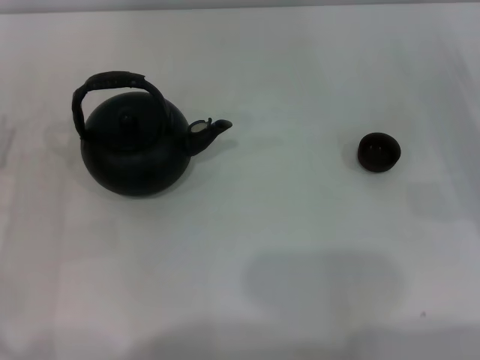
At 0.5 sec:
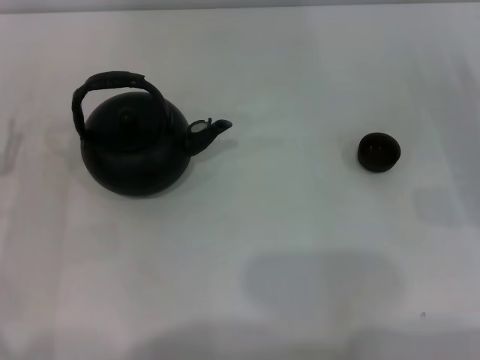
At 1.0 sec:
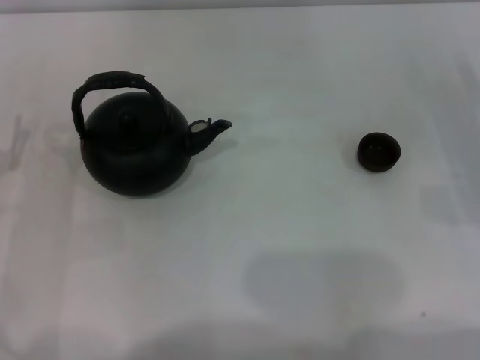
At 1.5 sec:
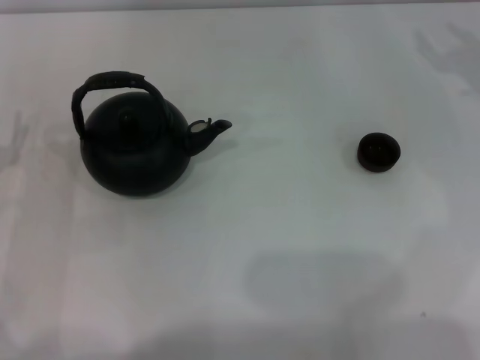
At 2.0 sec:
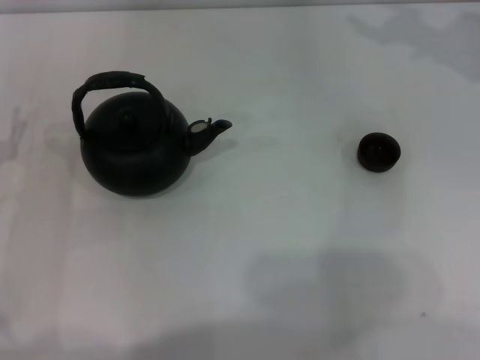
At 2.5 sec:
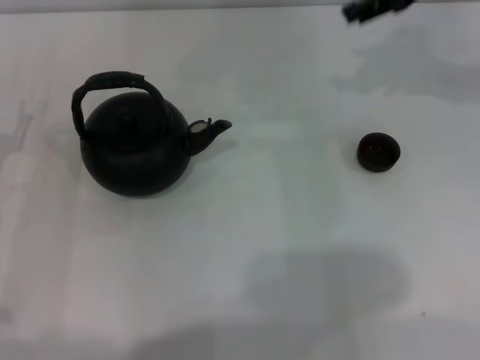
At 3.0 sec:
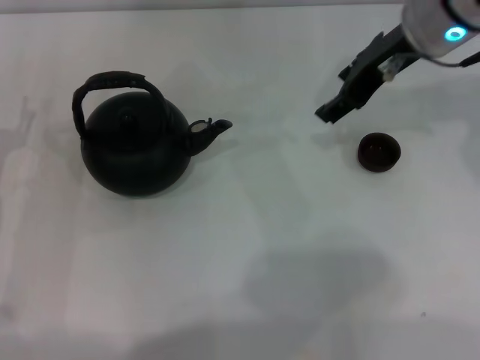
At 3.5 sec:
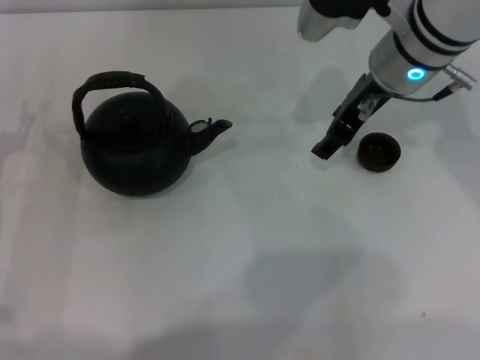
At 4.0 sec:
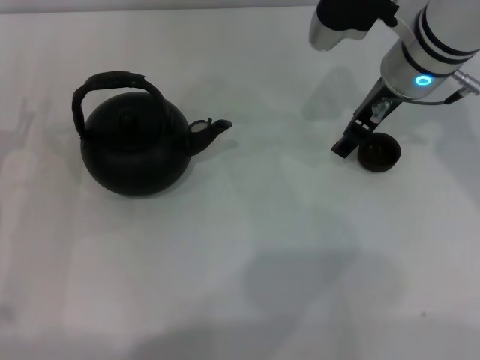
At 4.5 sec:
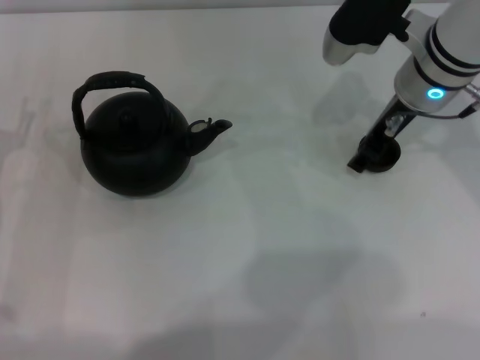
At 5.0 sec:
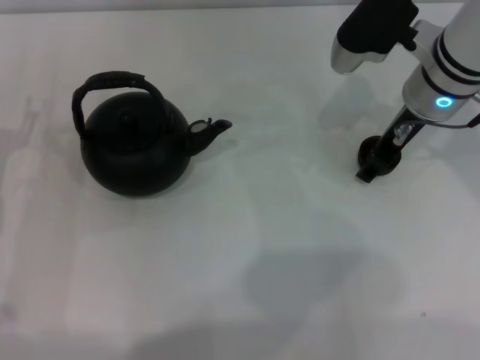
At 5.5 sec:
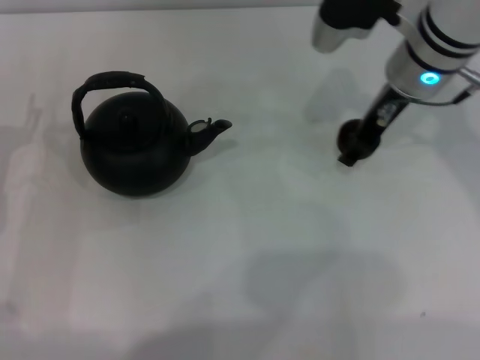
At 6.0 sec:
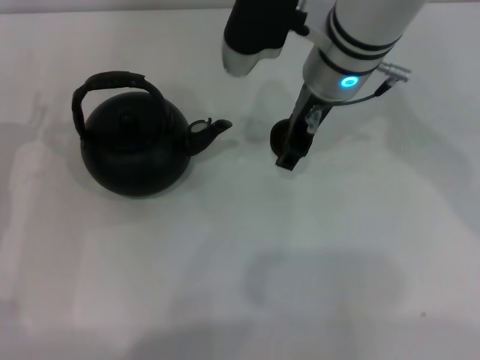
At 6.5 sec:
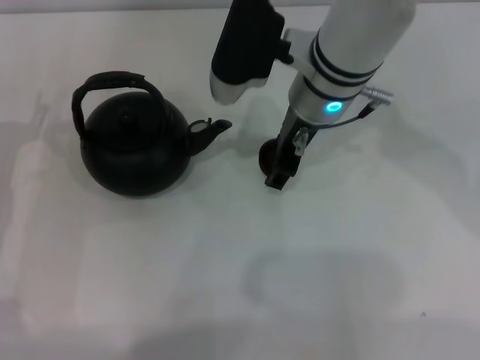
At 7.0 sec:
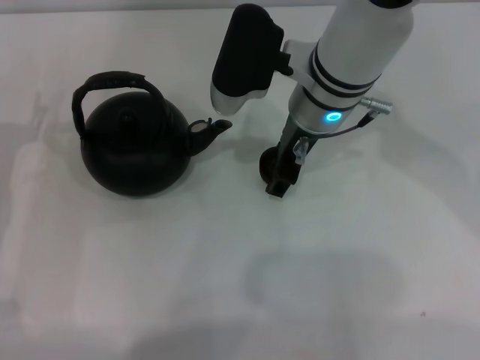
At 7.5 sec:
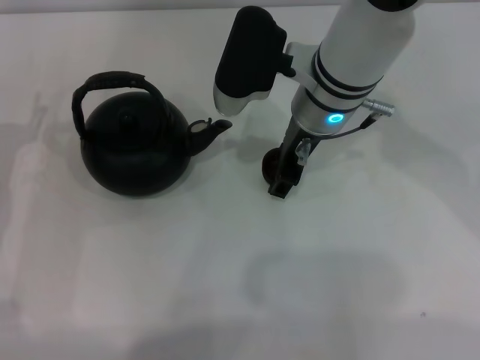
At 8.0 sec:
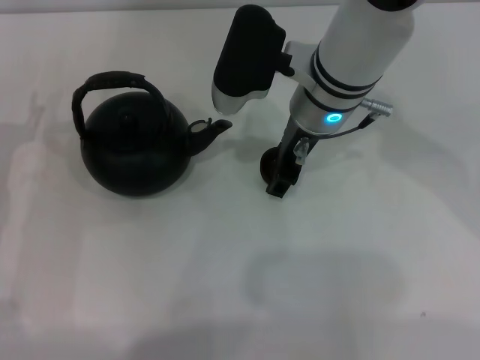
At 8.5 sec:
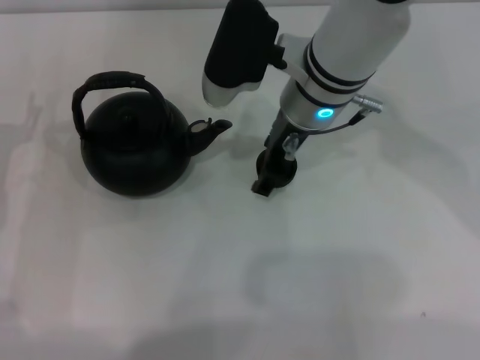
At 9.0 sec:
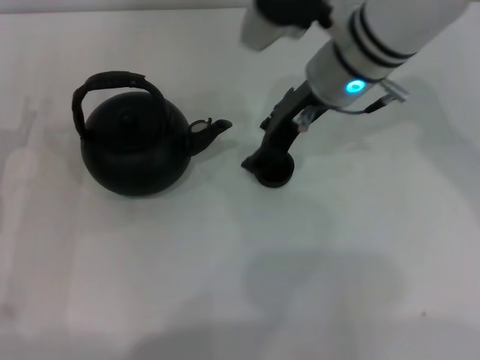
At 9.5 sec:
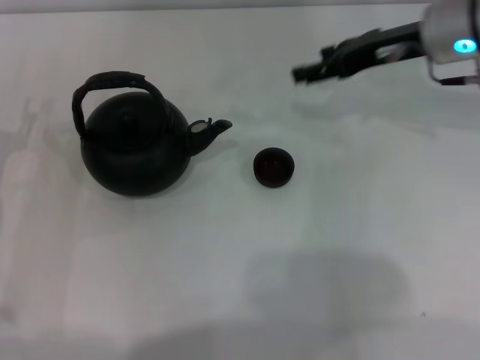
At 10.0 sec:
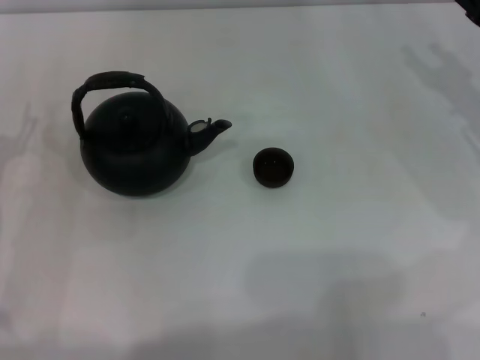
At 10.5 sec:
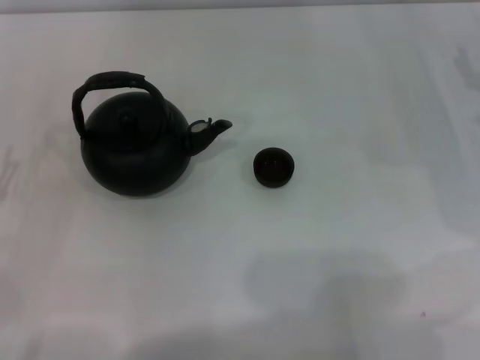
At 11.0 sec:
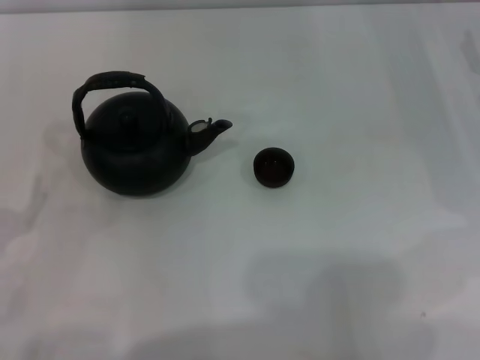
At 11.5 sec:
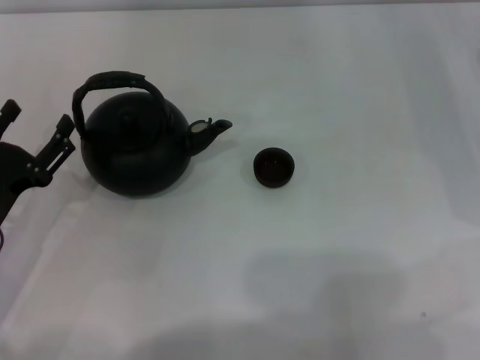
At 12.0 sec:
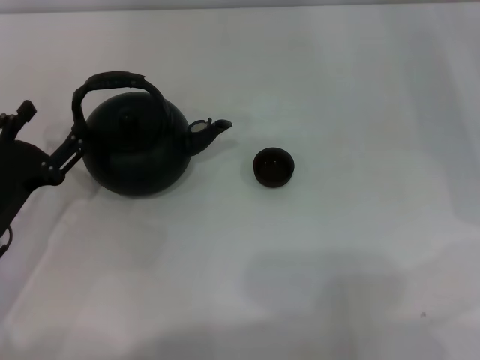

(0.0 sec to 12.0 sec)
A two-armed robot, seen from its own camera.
Task of the whole recording: Grasp the handle of the teapot with one hand and pour tea into the teacup.
Step, 0.0 sec - 5.5 sec: Pick up the teacup with the right gripper.
Step, 6.0 sec - 8.5 sec: Place the teacup in the center of view with the right gripper.
2.0 sec - 4.0 sec: The right gripper goes about 15 cm to the left and downward.
4.0 sec - 6.0 sec: The right gripper shifts roughly 10 cm to the left.
6.0 sec - 8.0 sec: The grippers move only a little.
8.0 sec - 10.0 sec: The right gripper shifts some 25 cm to the right.
10.0 sec - 12.0 sec: The left gripper moves roughly 10 cm backward and comes back.

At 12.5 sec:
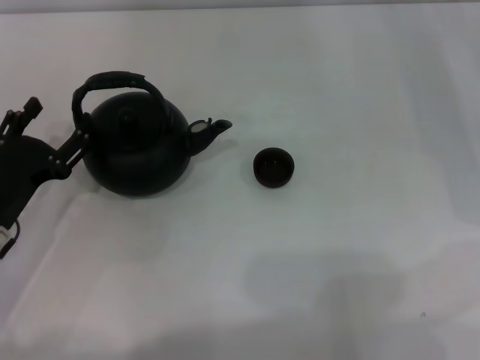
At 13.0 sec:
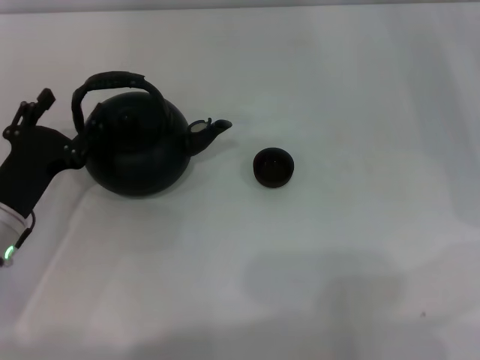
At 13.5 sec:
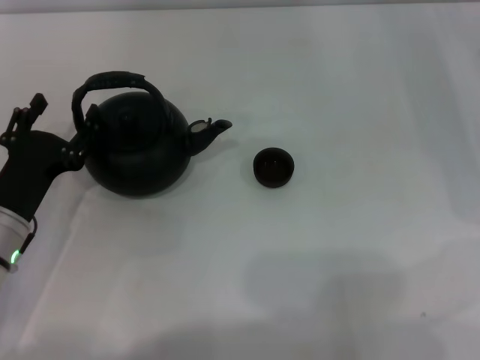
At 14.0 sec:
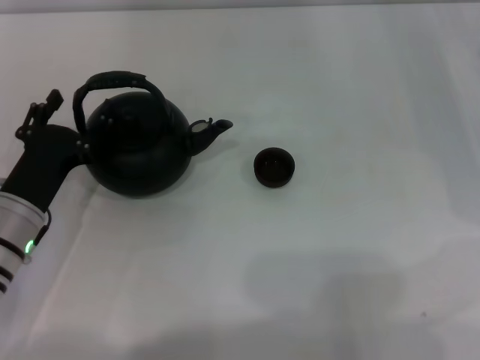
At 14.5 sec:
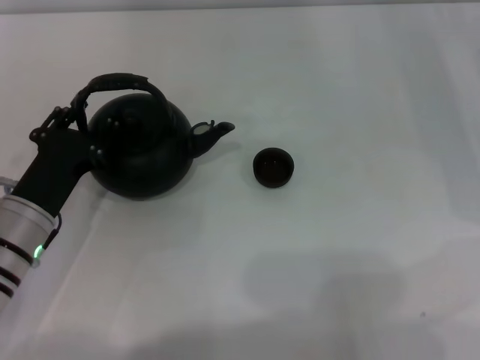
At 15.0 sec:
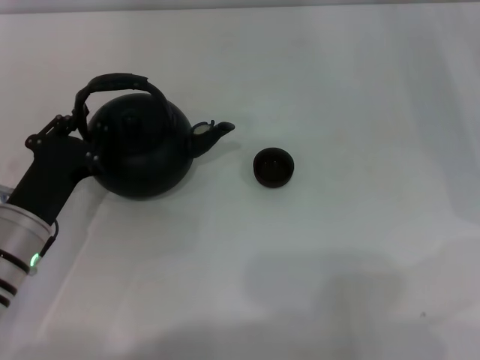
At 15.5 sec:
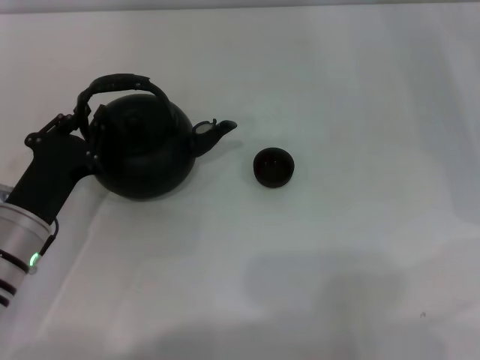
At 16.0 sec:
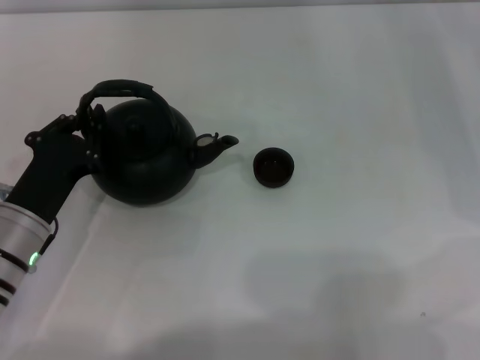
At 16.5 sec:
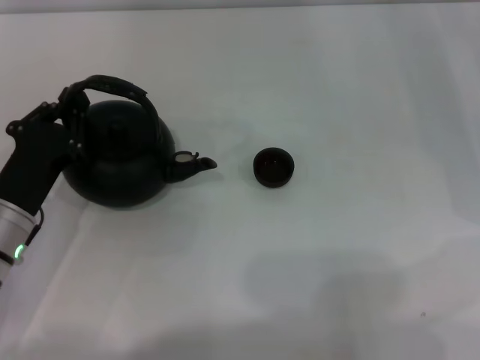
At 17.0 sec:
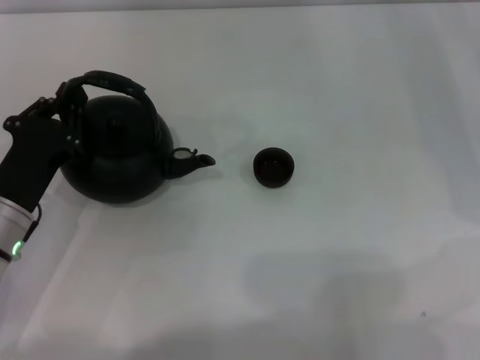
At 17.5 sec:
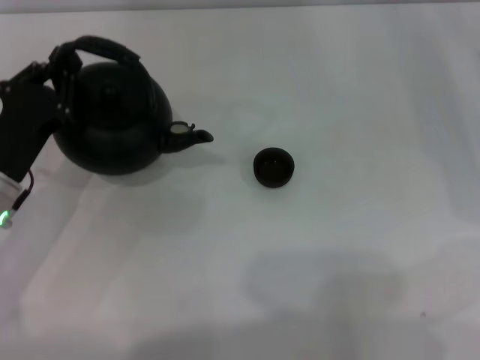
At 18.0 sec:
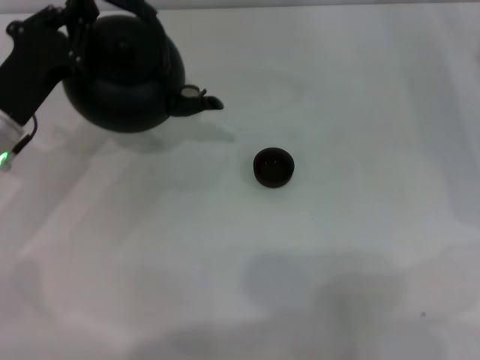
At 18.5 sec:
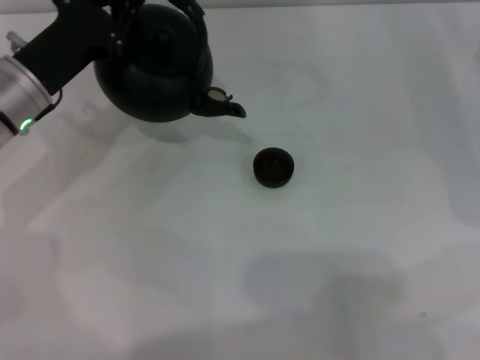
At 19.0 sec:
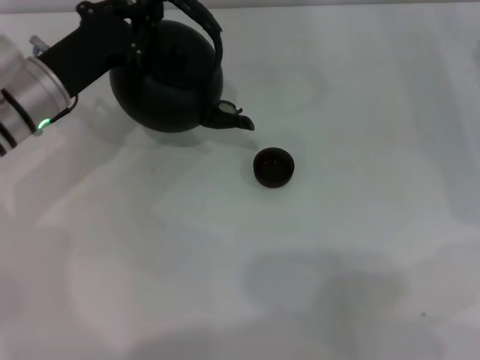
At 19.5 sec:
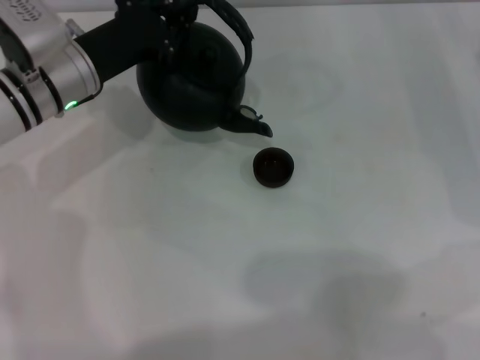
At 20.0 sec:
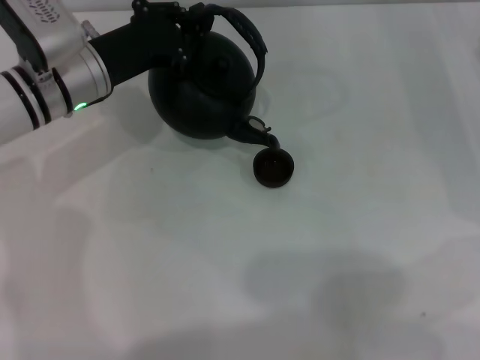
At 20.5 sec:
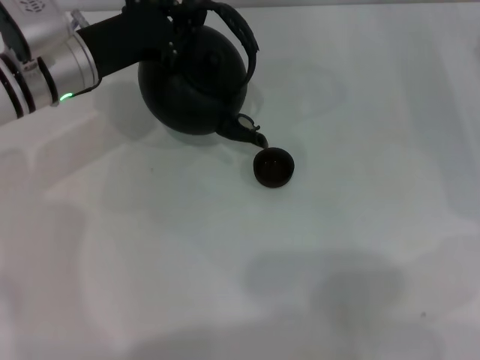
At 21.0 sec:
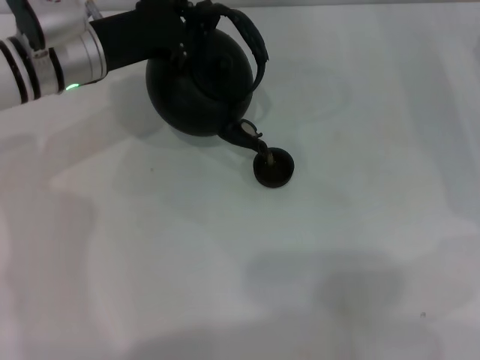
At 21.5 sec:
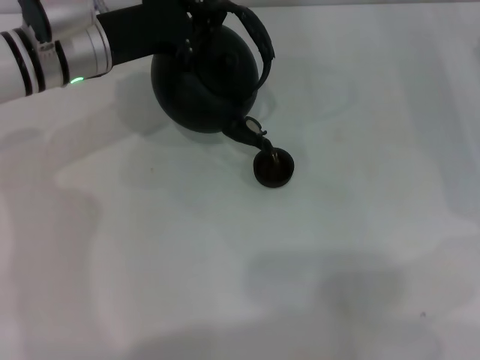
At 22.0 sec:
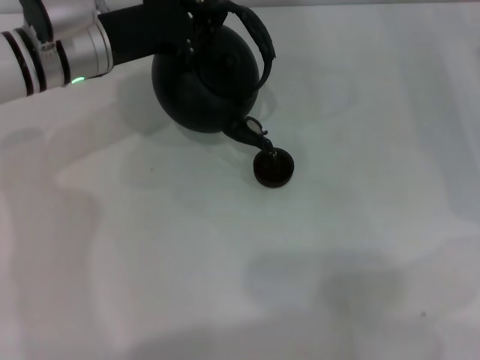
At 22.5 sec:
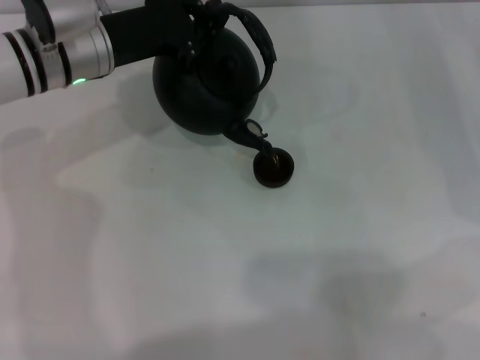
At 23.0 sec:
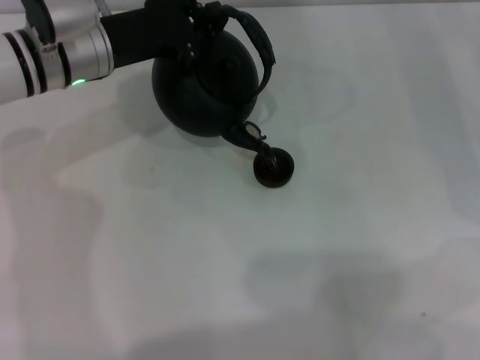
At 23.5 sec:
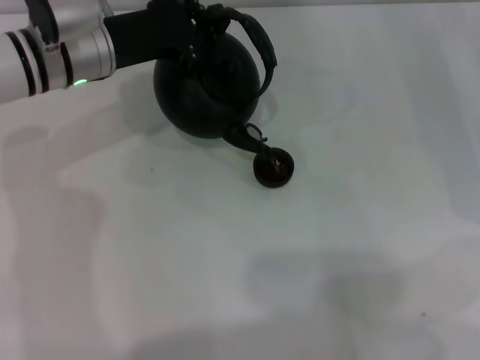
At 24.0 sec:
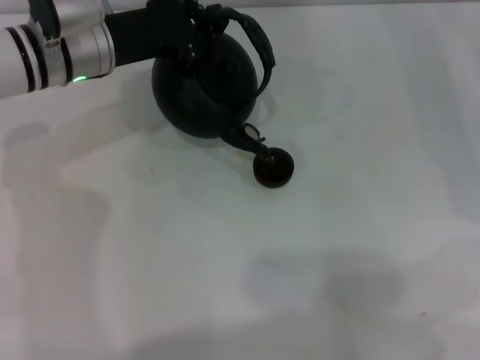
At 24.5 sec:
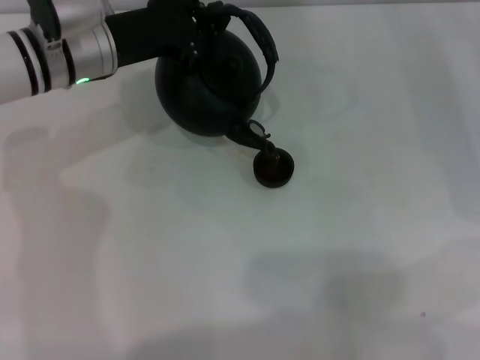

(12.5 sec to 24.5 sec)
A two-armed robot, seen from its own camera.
Task of the whole recording: Grasp the handle of the teapot with one hand and pour tea into the teacup.
Step, 12.5 sec - 17.0 sec: Pick up the teapot with the left gripper.
12.5 sec - 14.5 sec: The grippers move only a little.
14.5 sec - 16.5 sec: The left gripper closes its fingers.
16.5 sec - 18.5 sec: The left gripper moves forward and upward, about 15 cm.
18.5 sec - 20.5 sec: The left gripper shifts by about 5 cm.
20.5 sec - 22.5 sec: The grippers make only small movements.
22.5 sec - 24.5 sec: Neither gripper changes place.

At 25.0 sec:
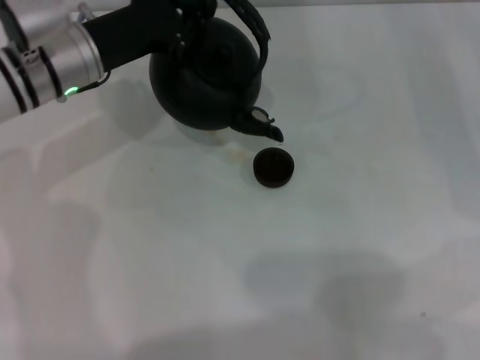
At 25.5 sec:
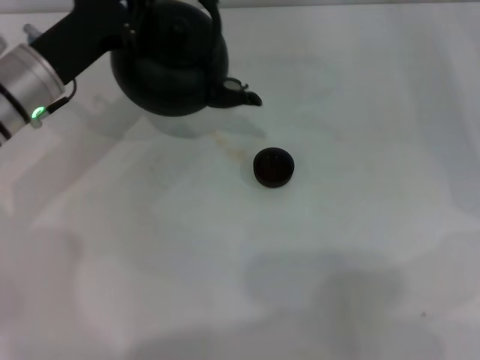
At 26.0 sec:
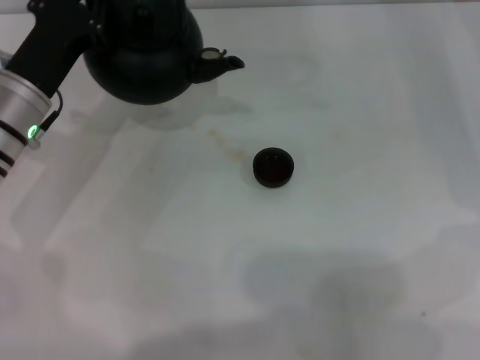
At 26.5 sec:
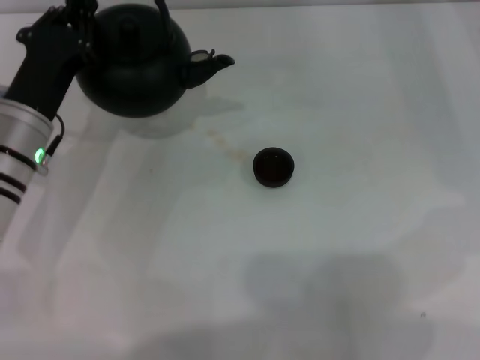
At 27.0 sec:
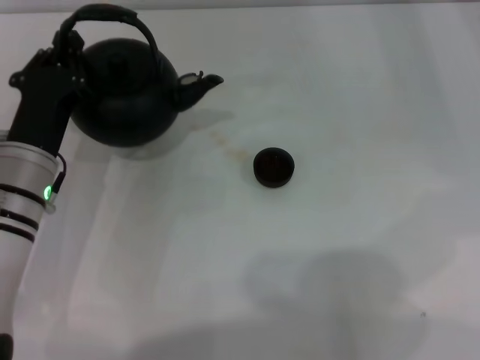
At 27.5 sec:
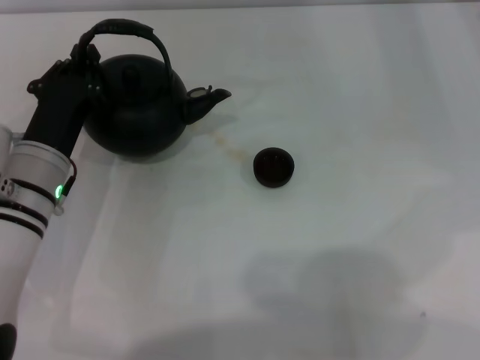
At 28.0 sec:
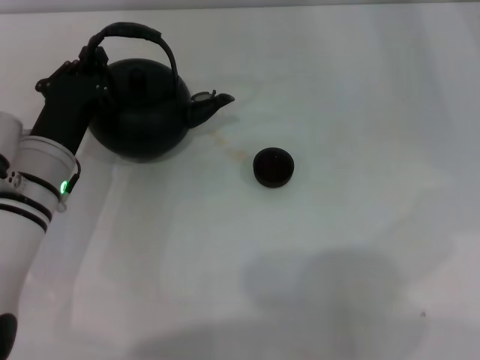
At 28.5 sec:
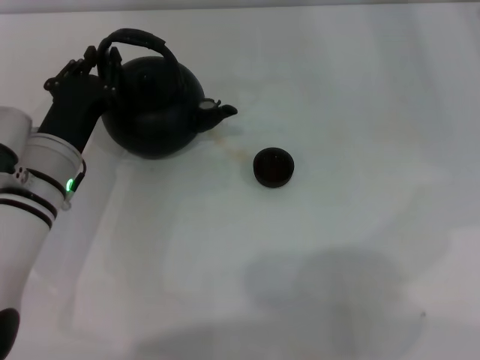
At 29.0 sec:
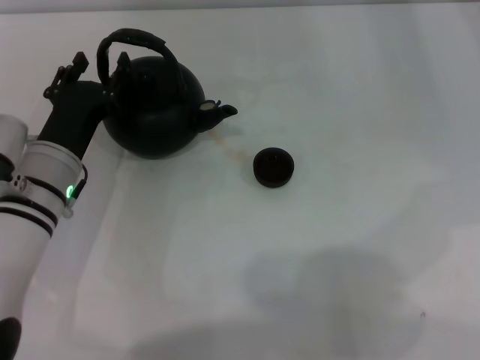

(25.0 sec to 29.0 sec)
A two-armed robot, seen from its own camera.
Task of the whole recording: Grasp the handle of the teapot with one hand and pour tea into the teacup.
25.0 sec - 27.0 sec: The left gripper goes about 15 cm backward and downward; the right gripper ends up about 5 cm from where it was.
27.0 sec - 29.0 sec: The left gripper opens its fingers.
